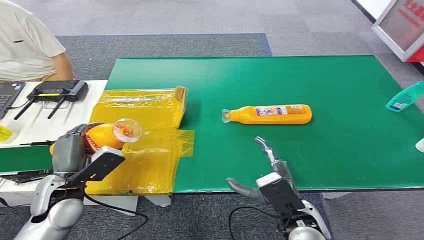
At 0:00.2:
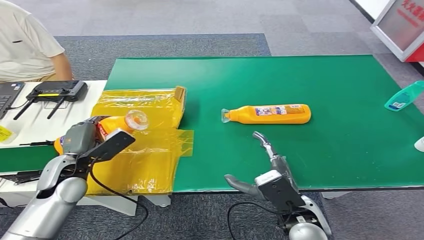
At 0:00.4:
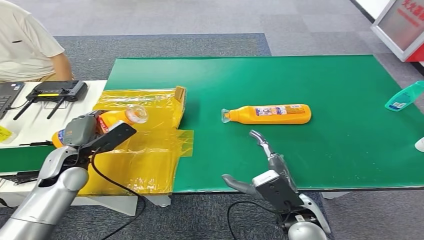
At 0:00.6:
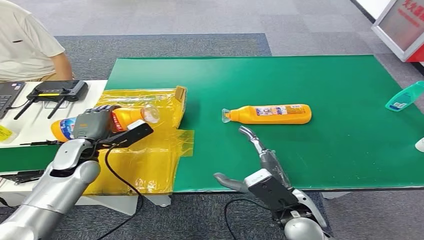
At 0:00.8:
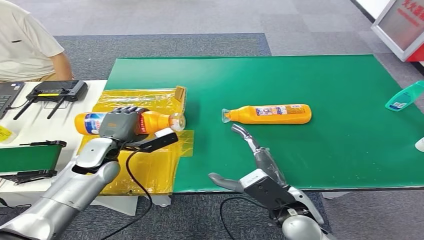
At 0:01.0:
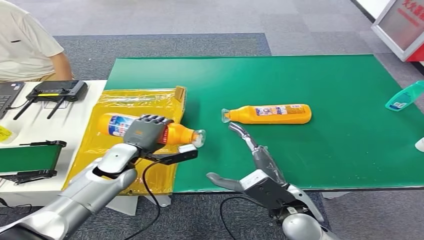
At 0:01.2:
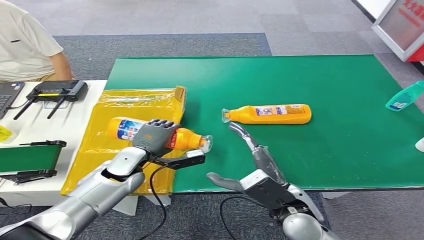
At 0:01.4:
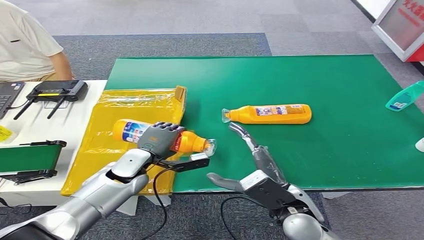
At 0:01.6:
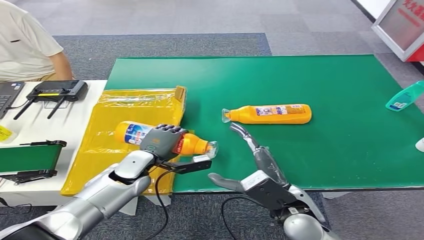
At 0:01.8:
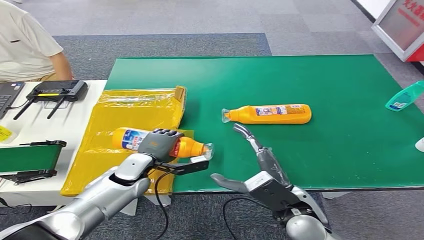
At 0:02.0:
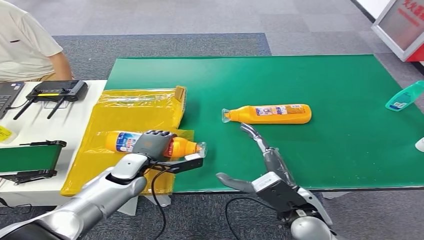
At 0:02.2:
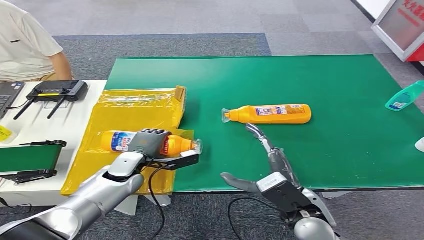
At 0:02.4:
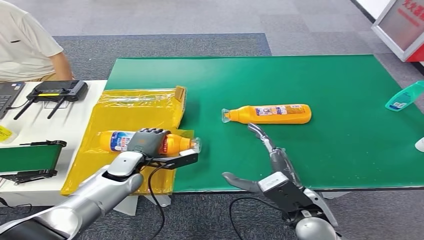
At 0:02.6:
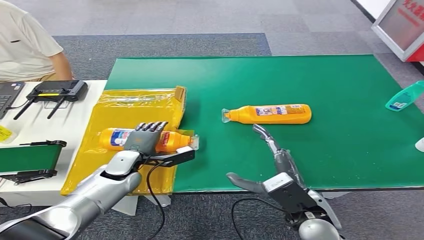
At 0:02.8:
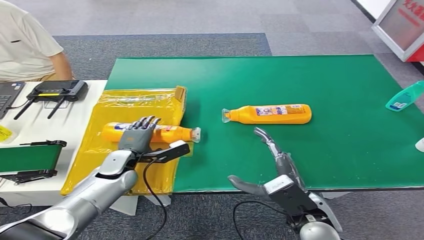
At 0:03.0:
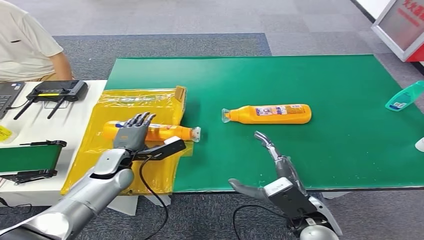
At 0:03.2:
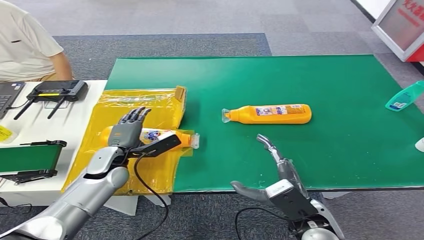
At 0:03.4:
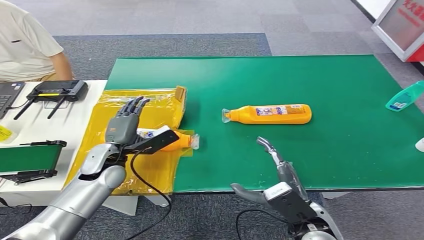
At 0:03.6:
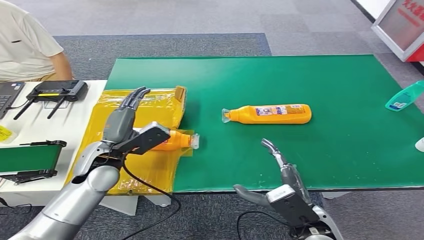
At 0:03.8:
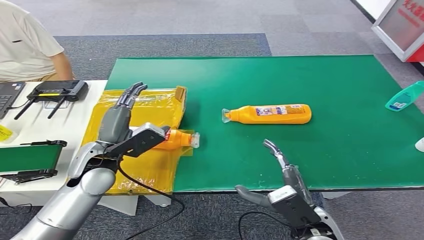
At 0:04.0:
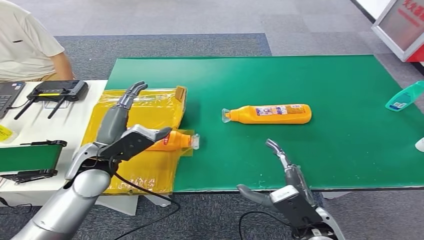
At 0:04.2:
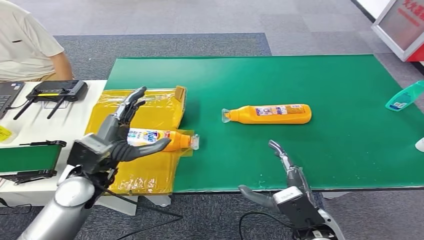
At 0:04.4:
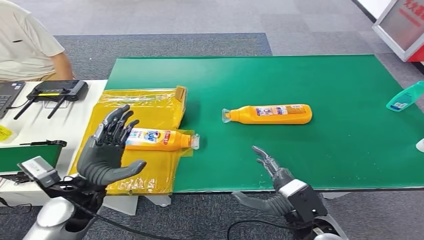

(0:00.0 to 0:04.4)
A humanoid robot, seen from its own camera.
Step, 0:00.0 - 0:04.4: Turn the bottle to the front side.
0:00.0 - 0:01.4: The right hand shifts by some 5 cm, while the left hand goes about 15 cm to the right and forward.
0:03.0 - 0:04.4: The left hand travels backward and upward by approximately 15 cm.
